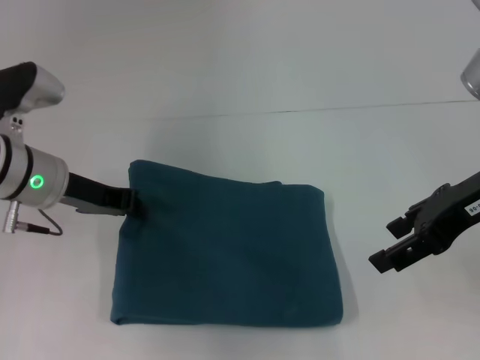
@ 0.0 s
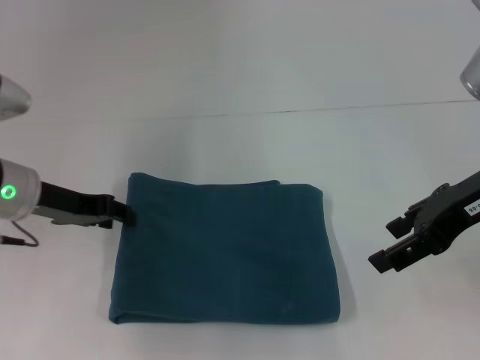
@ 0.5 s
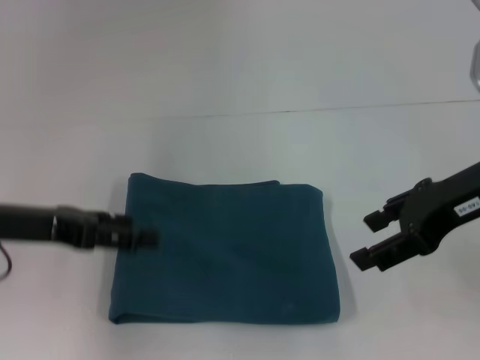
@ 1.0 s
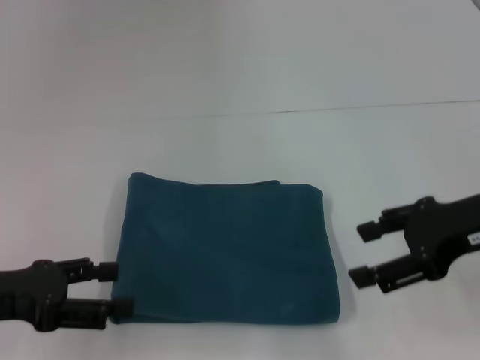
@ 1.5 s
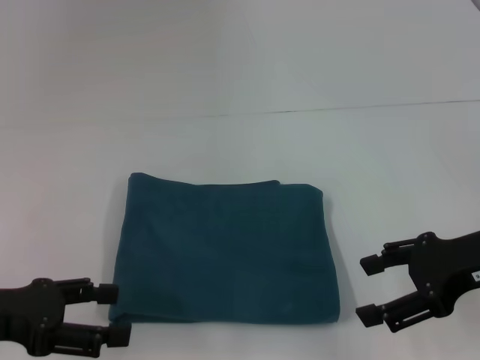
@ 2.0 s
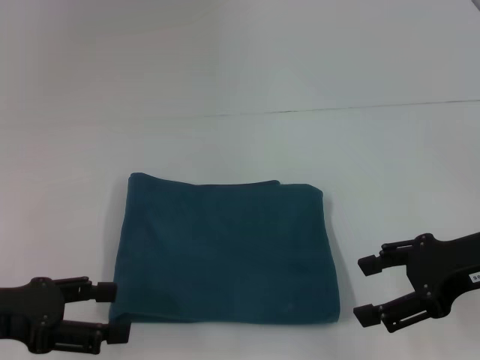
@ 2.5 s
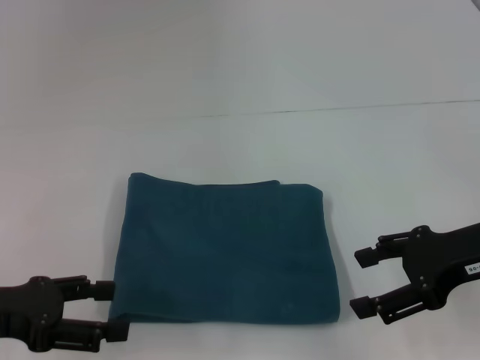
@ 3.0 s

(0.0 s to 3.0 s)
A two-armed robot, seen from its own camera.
0.0 s - 1.5 s: The left gripper is displaced backward and to the left by some 15 cm, and opens.
1.5 s - 3.0 s: The grippers stay close to where they were, moving slightly.

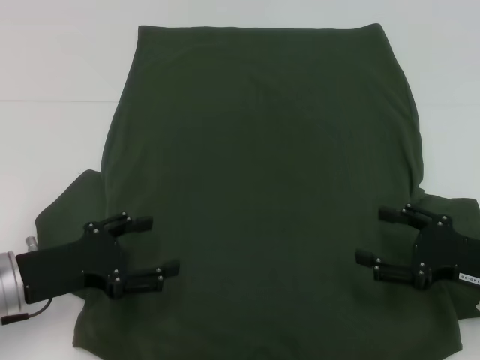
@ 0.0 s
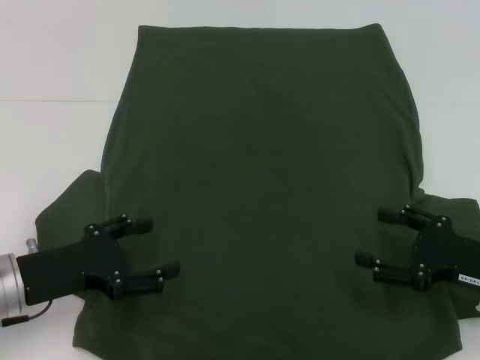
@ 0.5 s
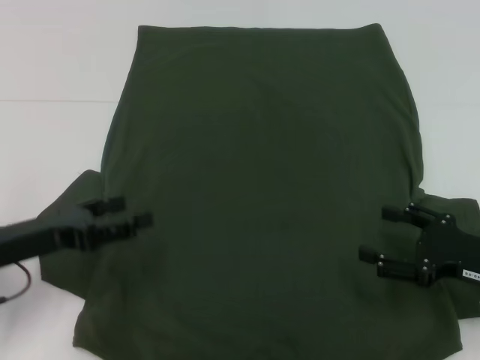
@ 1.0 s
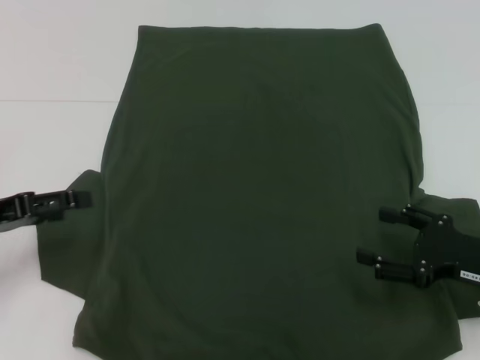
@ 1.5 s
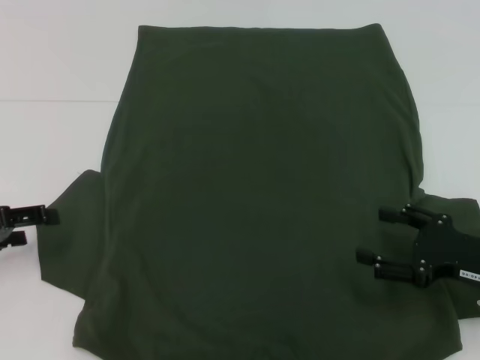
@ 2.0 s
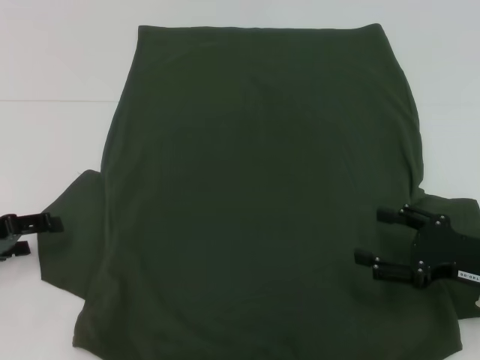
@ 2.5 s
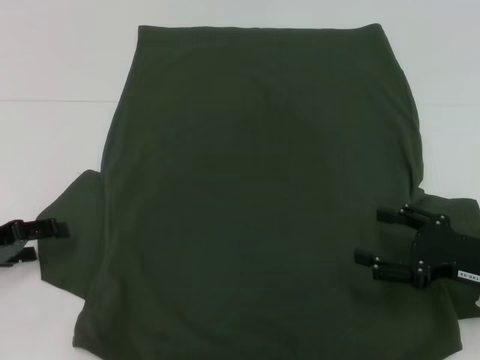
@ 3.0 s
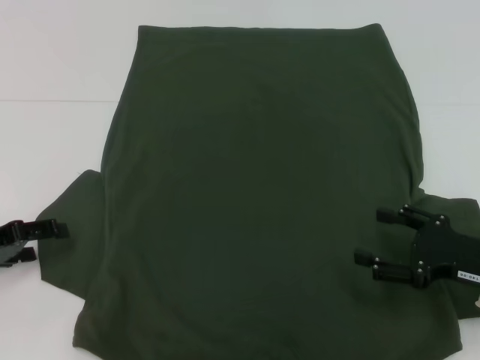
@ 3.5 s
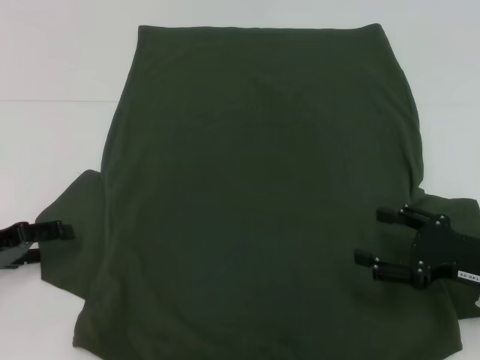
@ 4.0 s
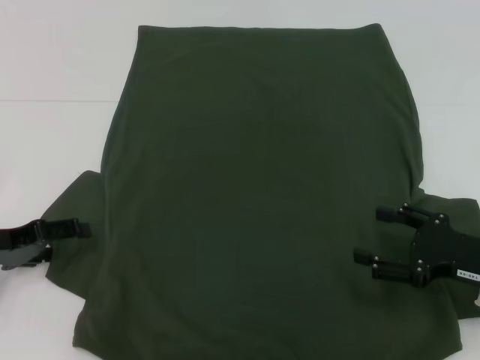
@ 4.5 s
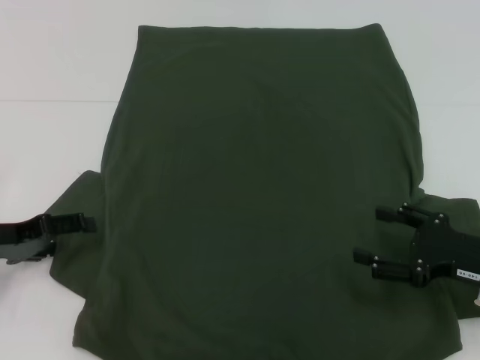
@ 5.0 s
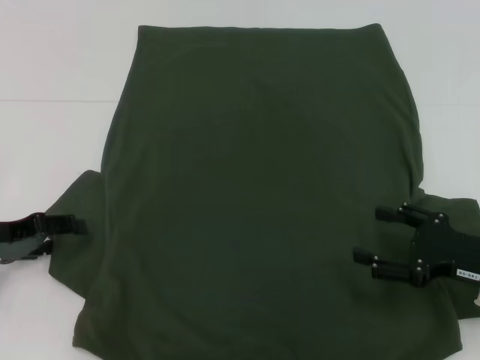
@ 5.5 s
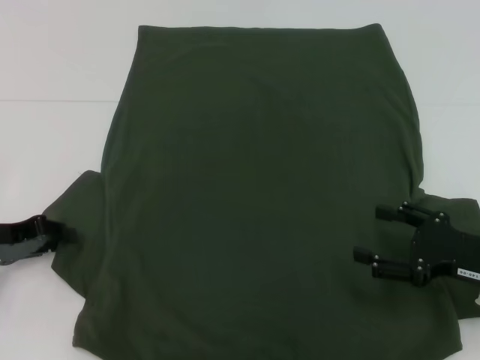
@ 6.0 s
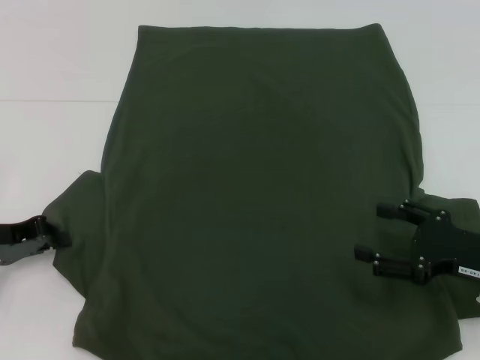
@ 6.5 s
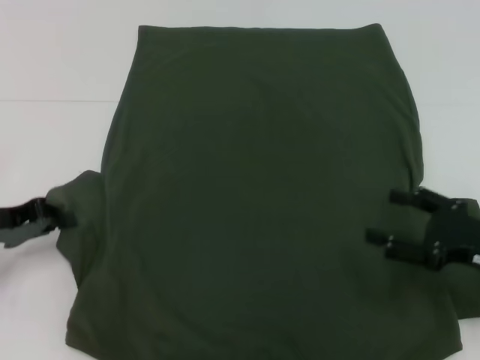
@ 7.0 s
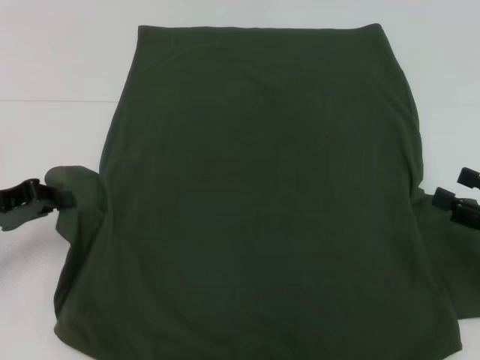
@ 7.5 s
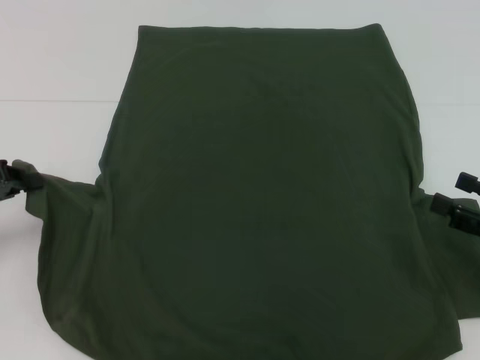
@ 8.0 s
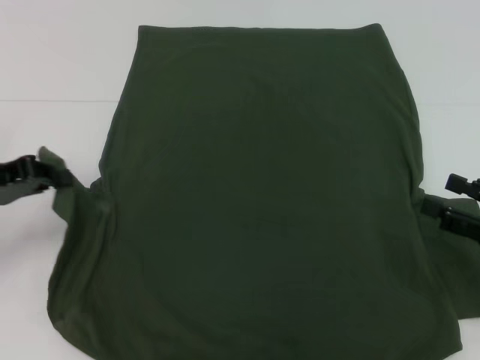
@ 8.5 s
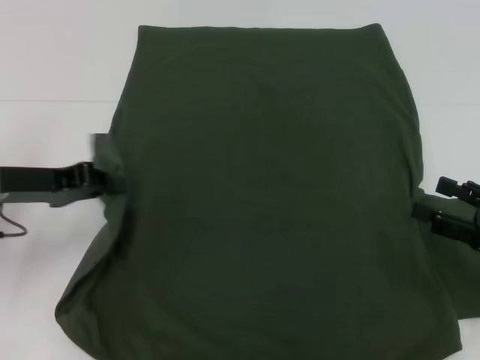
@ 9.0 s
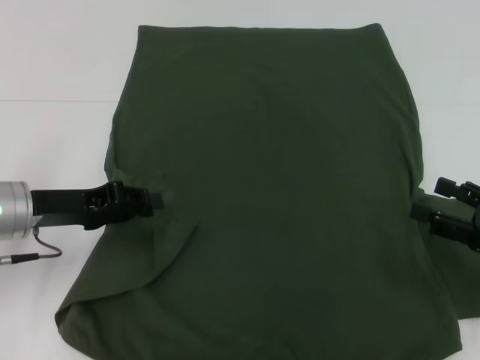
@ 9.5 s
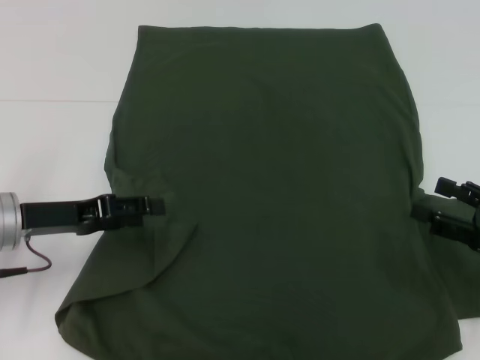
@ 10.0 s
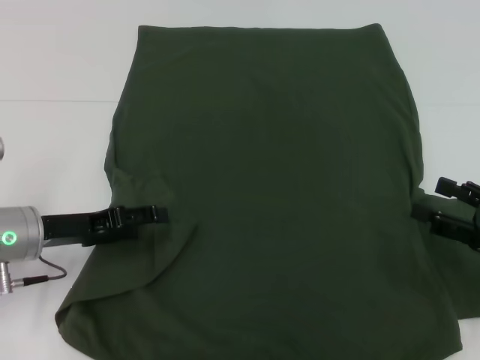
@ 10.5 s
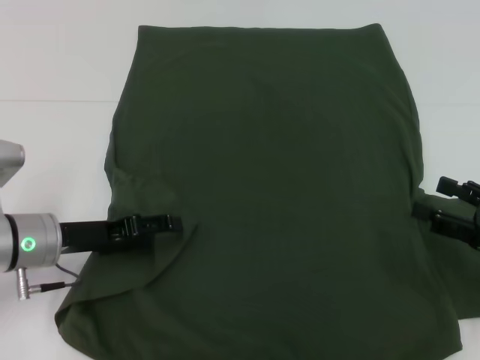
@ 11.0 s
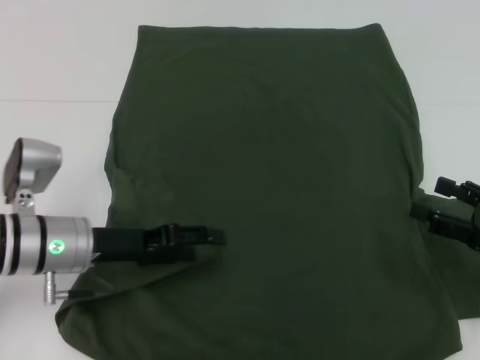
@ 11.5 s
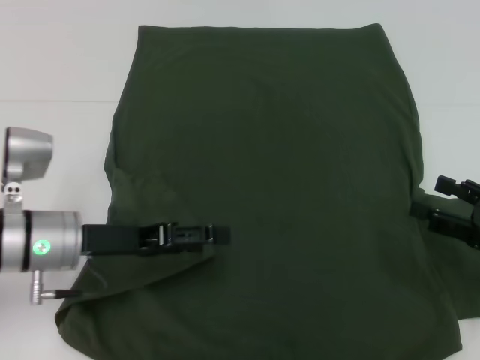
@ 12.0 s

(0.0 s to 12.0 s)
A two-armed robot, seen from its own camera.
Step, 0.0 s - 11.5 s: Fold the bottom left sleeve with your left hand.
0.0 s - 2.0 s: The left gripper shifts some 10 cm to the left.
2.0 s - 4.0 s: The grippers move only a little.
4.0 s - 6.0 s: The left gripper closes up.
6.0 s - 8.0 s: The left gripper shifts by approximately 5 cm, and closes its fingers, while the right gripper moves to the right, about 5 cm.
8.0 s - 10.0 s: The left gripper goes about 10 cm to the right, and opens up.
10.0 s - 12.0 s: The left gripper heads to the right, covering approximately 5 cm, and opens up.

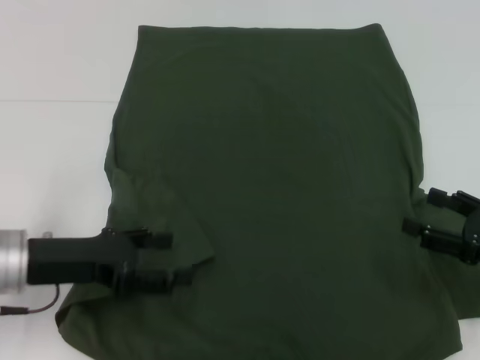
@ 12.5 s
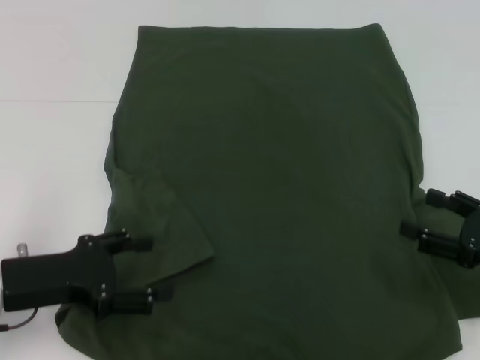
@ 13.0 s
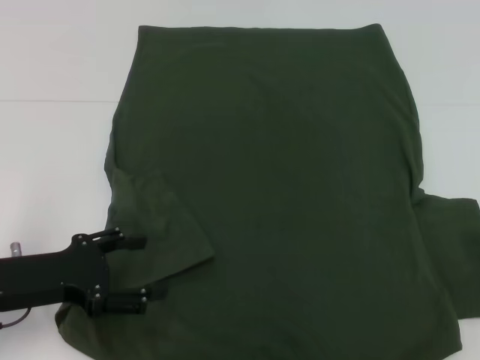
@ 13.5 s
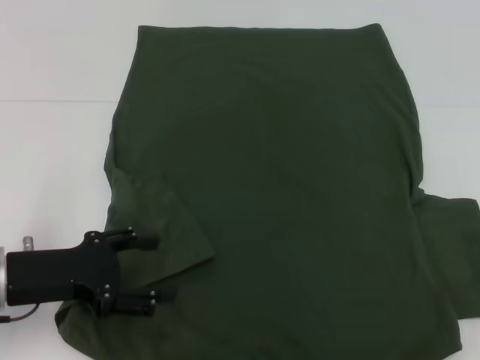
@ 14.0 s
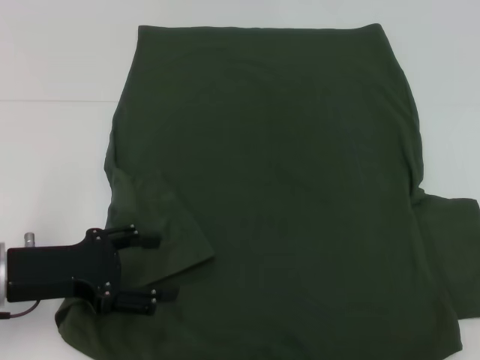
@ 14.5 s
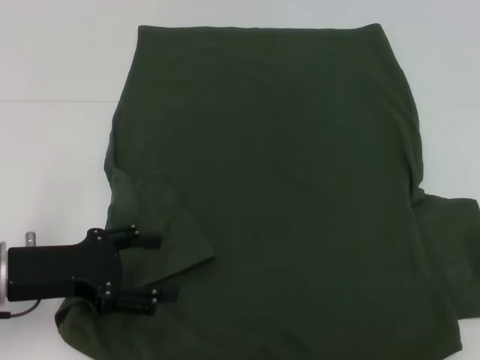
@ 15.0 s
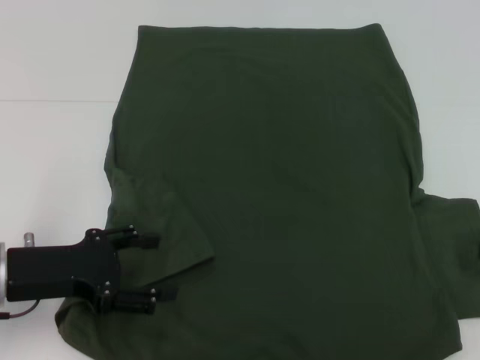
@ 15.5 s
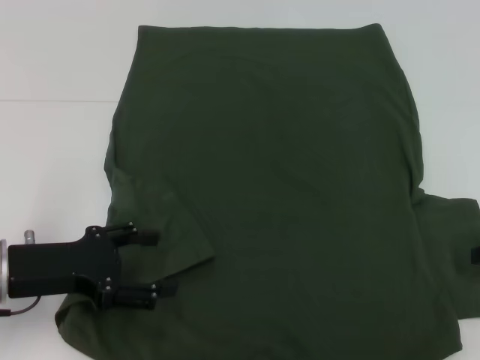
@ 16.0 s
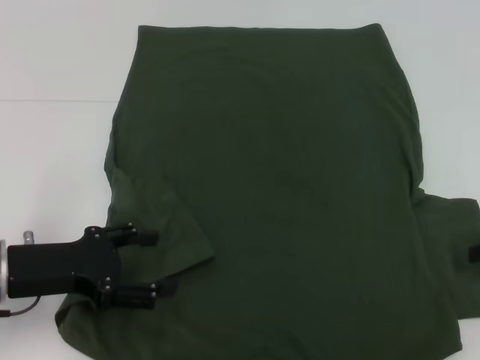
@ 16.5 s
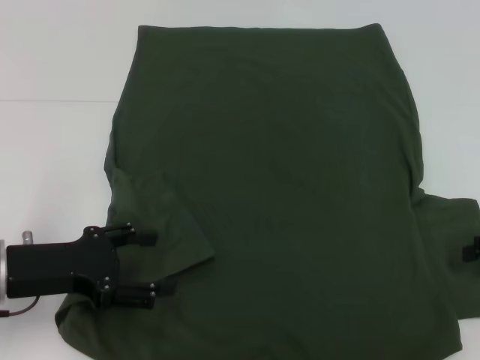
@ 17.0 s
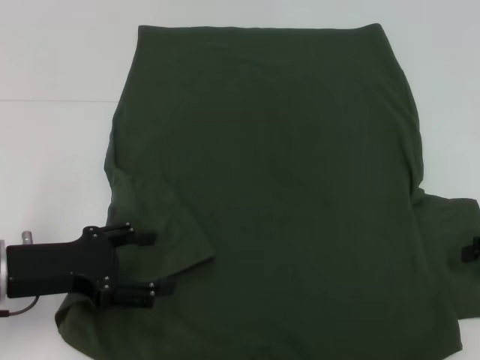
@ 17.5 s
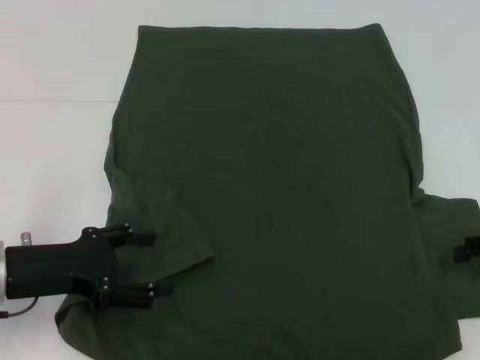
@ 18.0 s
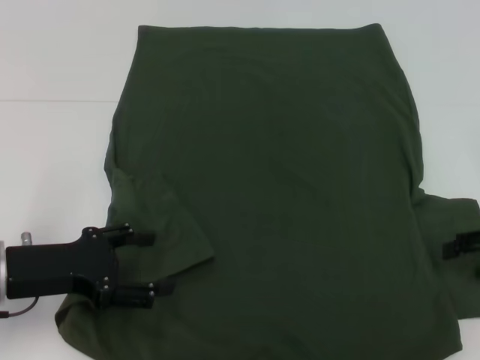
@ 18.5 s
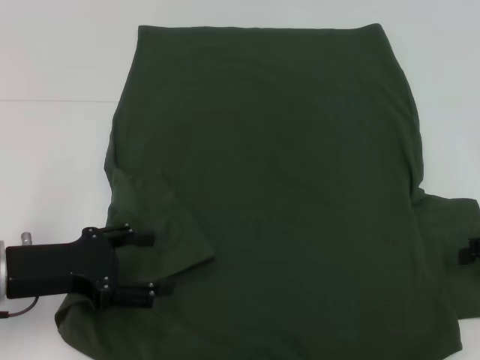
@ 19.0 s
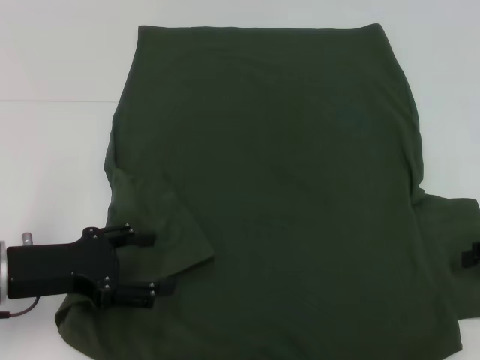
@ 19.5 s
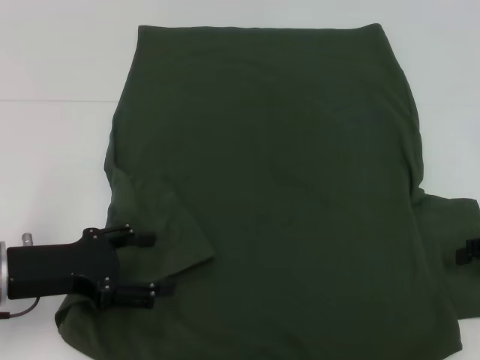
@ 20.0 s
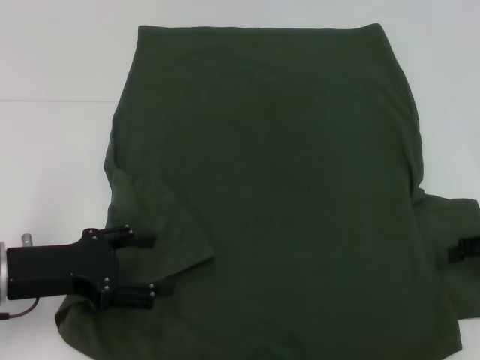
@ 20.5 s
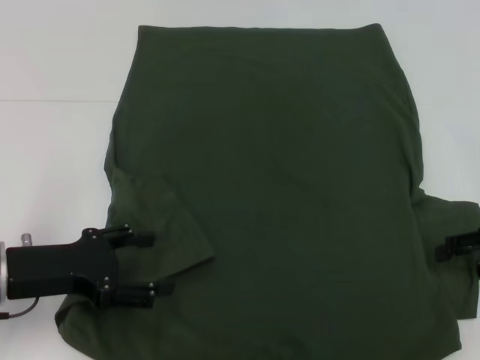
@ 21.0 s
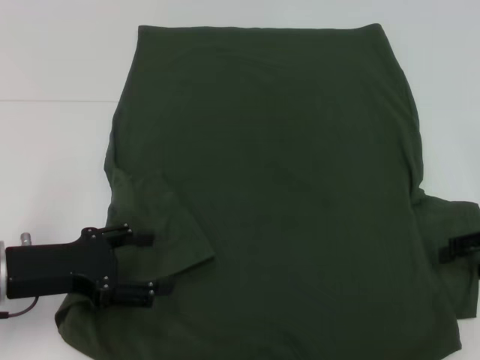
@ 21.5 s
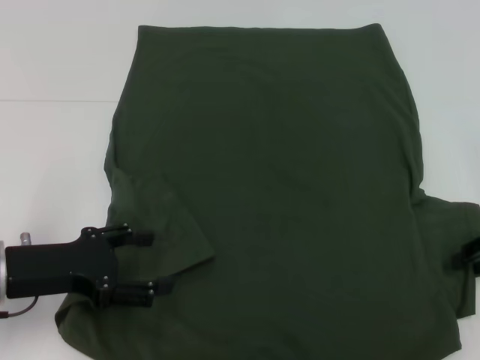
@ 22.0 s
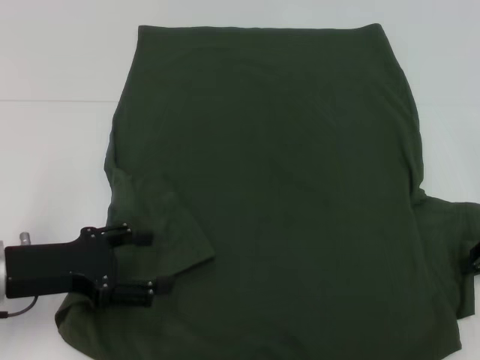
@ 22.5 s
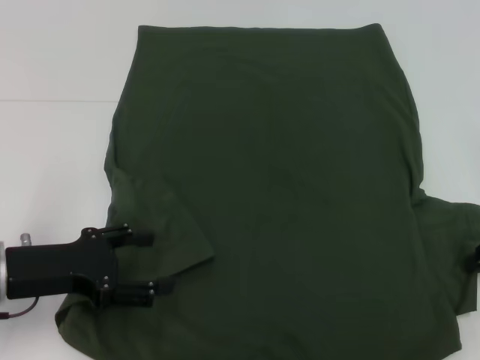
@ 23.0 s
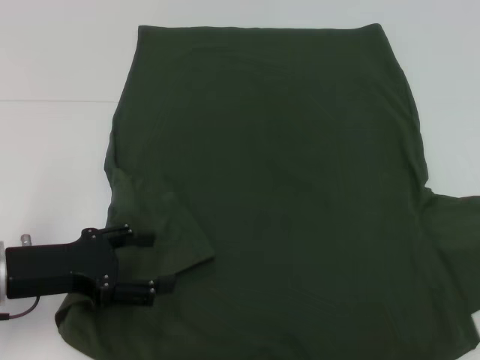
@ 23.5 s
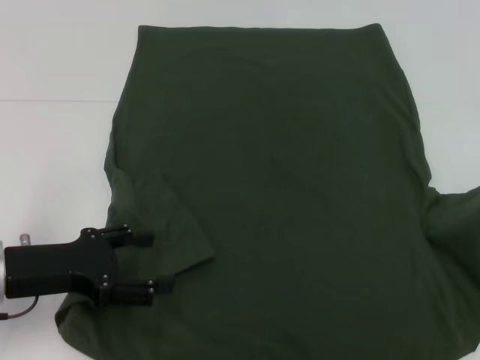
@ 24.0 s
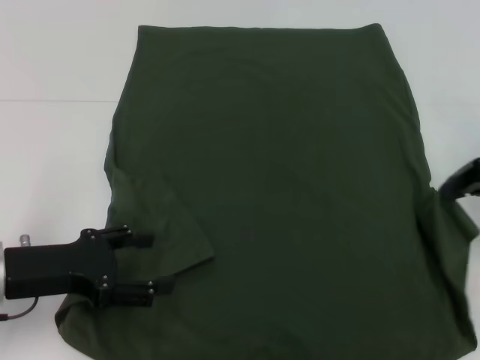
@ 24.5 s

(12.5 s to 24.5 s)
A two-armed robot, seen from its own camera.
12.5 s - 14.5 s: The right gripper goes approximately 10 cm to the right and upward.
22.5 s - 24.5 s: The right gripper moves upward, some 5 cm.
